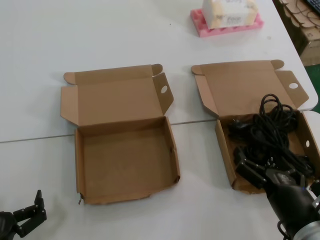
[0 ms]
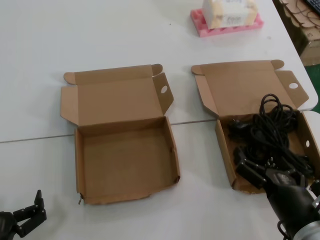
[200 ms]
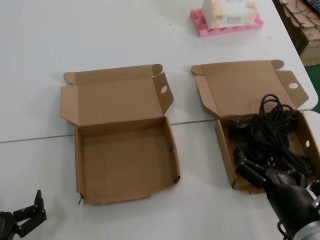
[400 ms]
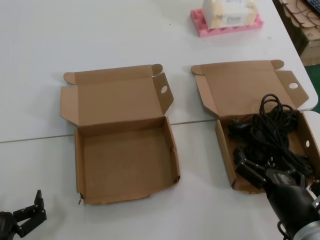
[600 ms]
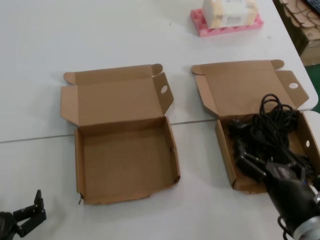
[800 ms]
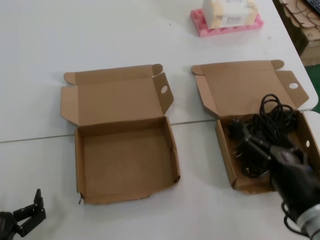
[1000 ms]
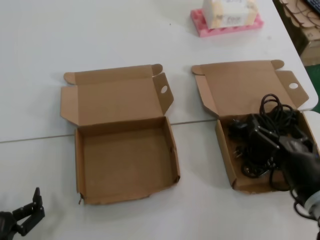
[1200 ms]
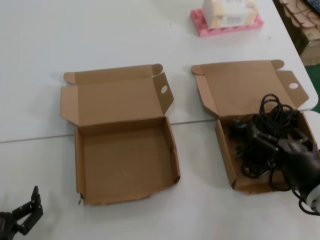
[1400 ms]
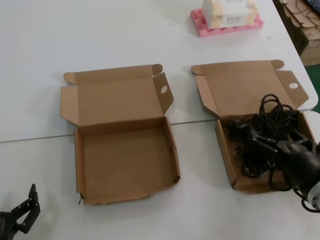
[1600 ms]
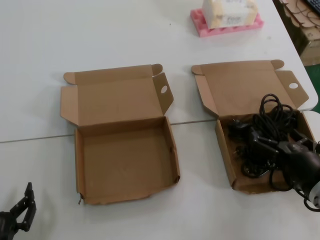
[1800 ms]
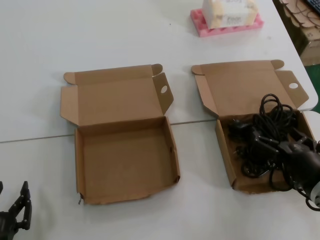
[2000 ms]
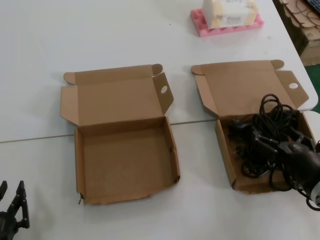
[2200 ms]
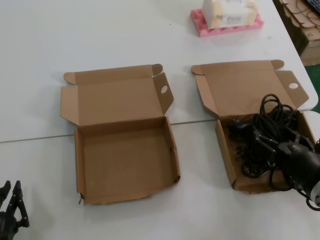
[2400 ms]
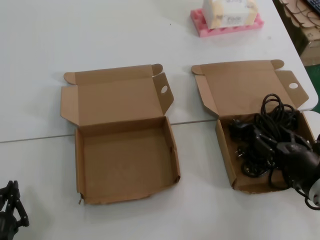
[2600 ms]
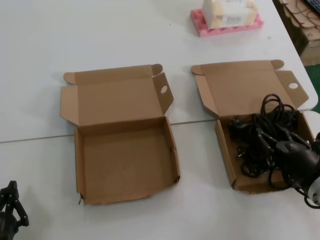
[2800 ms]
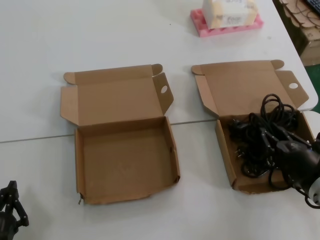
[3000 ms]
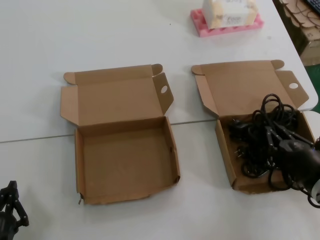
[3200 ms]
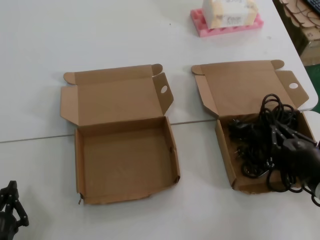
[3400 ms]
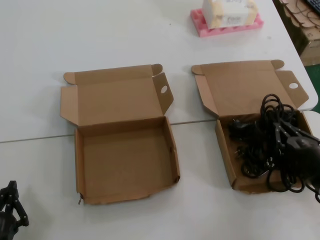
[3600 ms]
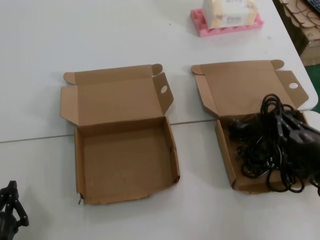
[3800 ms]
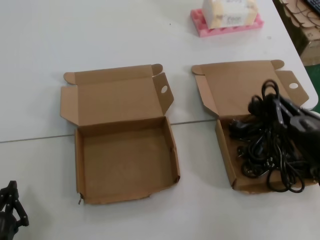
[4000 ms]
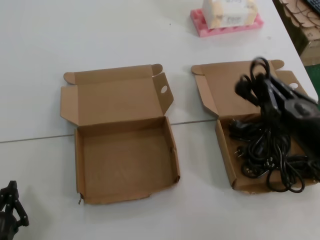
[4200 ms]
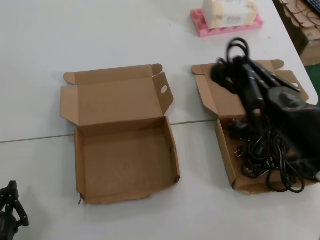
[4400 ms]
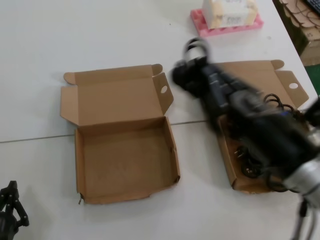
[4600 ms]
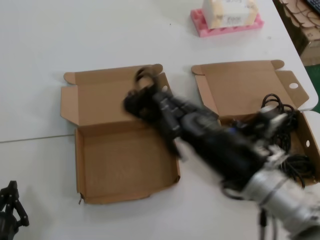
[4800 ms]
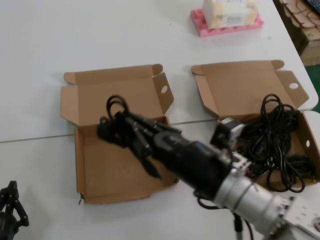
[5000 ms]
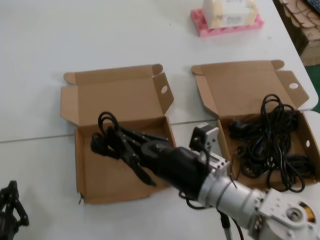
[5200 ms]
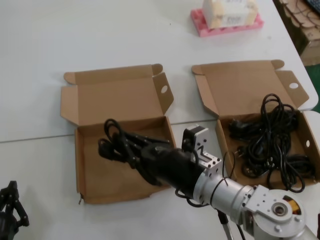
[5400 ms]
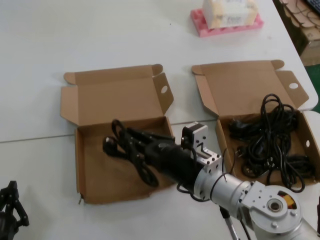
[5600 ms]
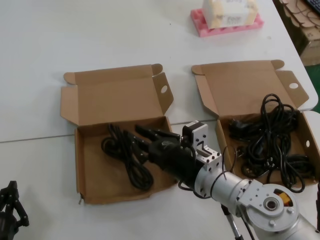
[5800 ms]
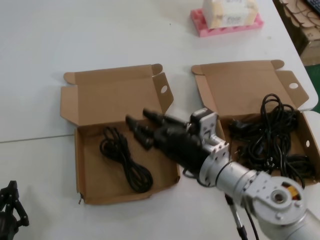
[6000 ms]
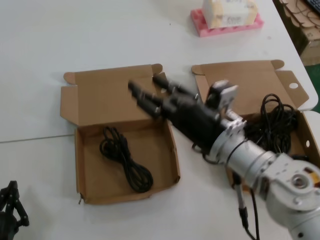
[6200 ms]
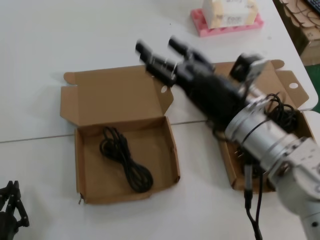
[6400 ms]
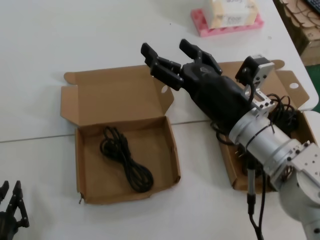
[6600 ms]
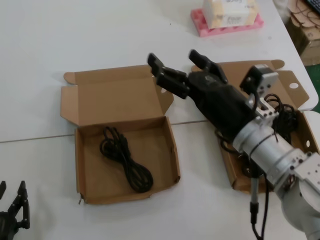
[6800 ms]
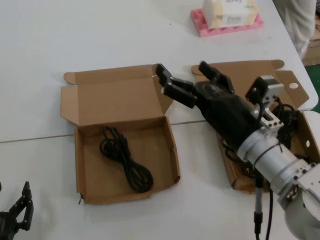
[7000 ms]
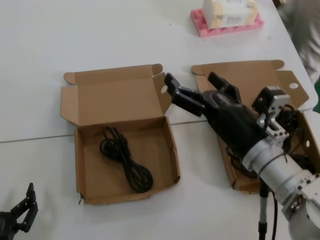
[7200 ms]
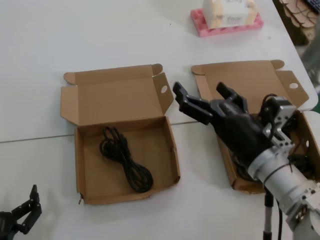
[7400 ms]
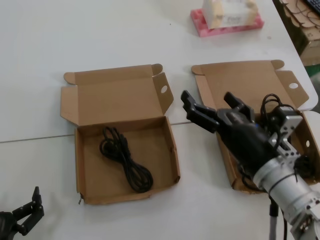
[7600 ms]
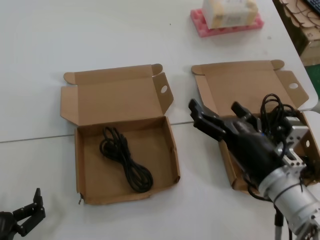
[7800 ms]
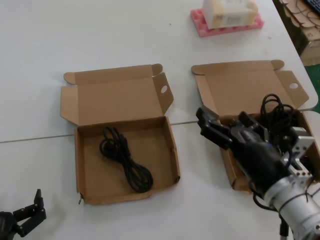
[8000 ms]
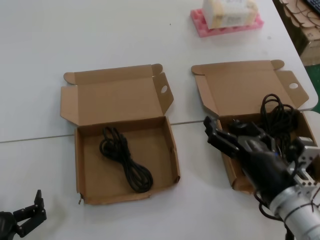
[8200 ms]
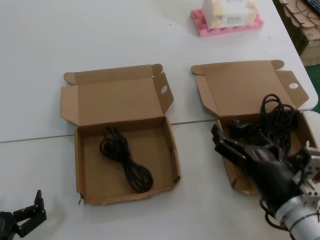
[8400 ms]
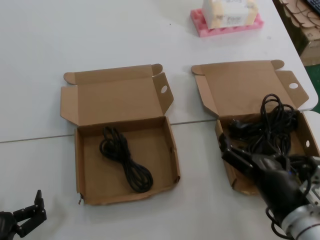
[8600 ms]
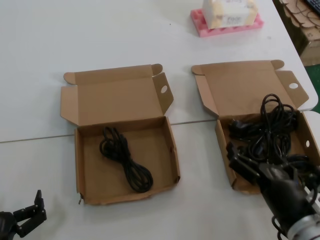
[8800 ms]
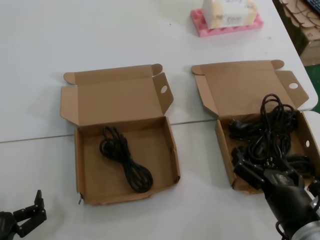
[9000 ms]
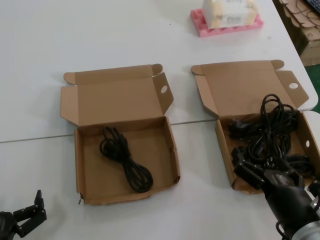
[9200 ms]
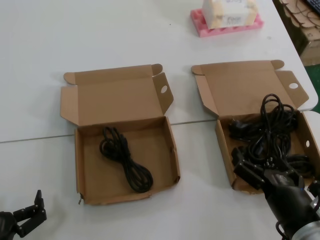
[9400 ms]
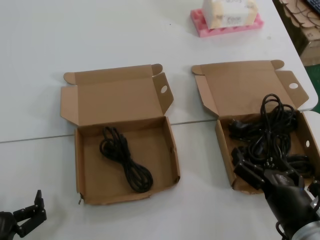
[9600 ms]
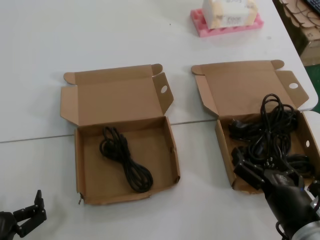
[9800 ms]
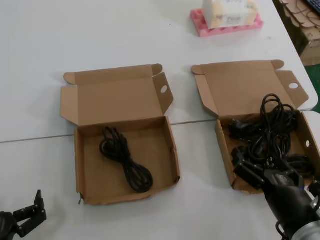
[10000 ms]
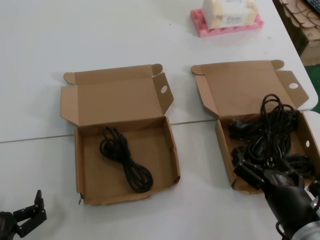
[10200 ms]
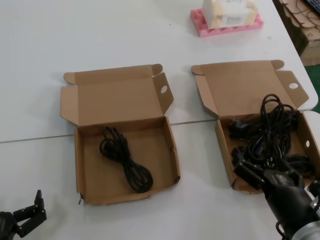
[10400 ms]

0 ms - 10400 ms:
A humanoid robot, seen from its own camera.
Task of the whole recording: Pick up the power cord from the box containing it and place it in another box.
Step, 0 ms - 3200 ms: Grasp the data cable.
Step, 3400 ms - 5800 ms: Place the data cable in the another box.
0 ms - 1400 ms: The right hand travels forward by approximately 5 cm.
1400 ms - 3000 ms: There are only small adjustments of the hands.
3000 ms - 4400 ms: The right hand travels upward and backward by about 10 cm.
4400 ms - 6000 ms: The right hand goes approximately 20 cm to the left and forward.
6000 ms - 7400 ms: The right hand is displaced to the right by about 5 cm, and reaches approximately 10 cm upward, then returns.
7400 ms - 9000 ms: The right hand travels downward and backward by about 15 cm.
9000 ms - 10400 ms: Neither hand changes place.
